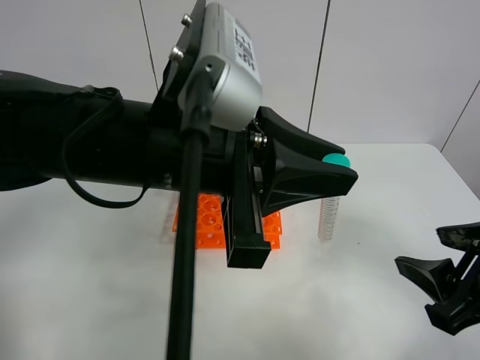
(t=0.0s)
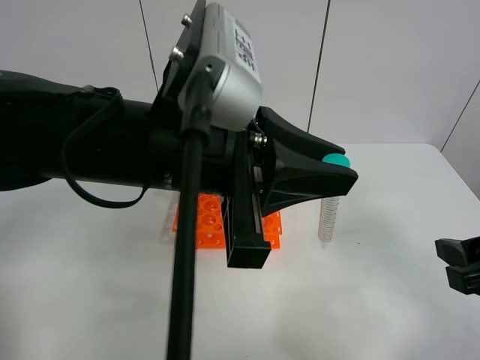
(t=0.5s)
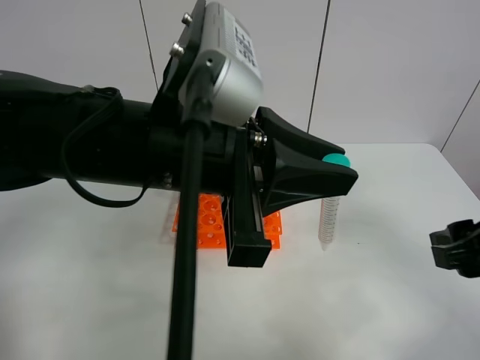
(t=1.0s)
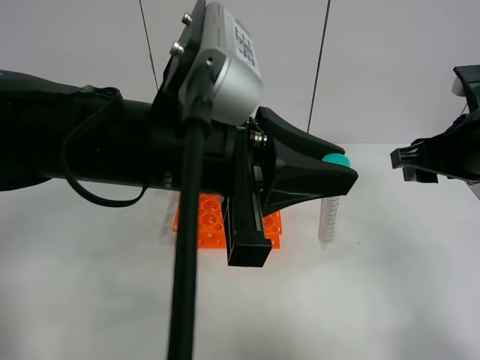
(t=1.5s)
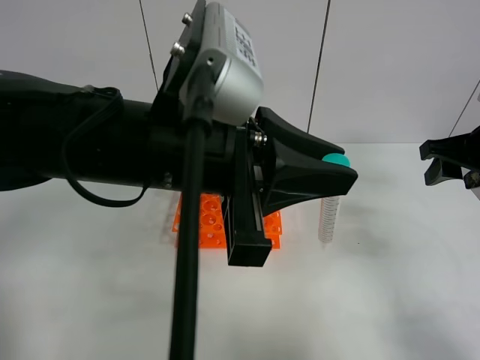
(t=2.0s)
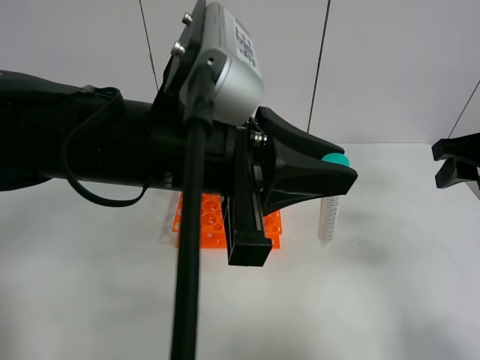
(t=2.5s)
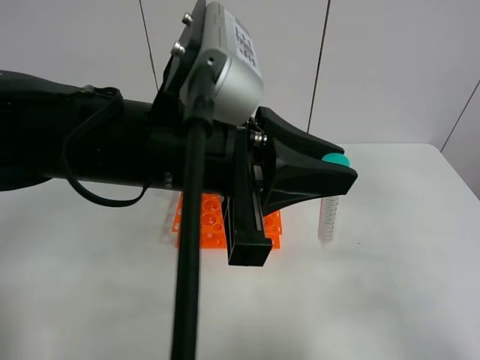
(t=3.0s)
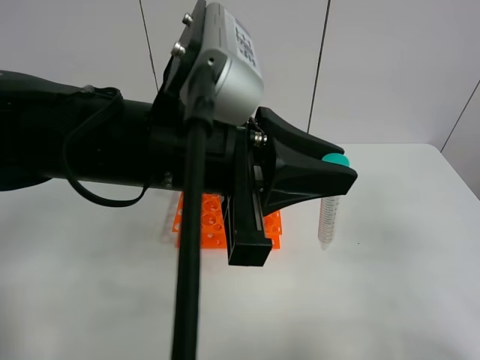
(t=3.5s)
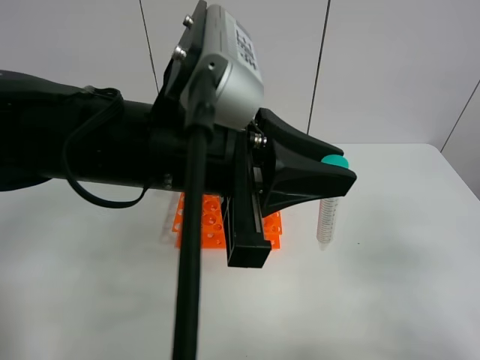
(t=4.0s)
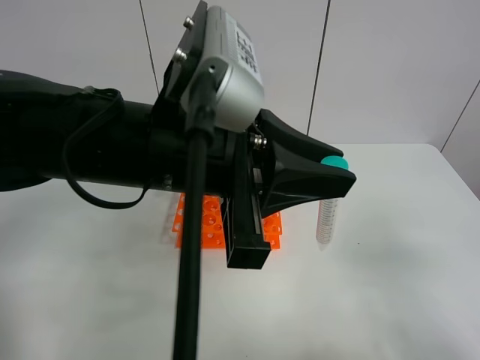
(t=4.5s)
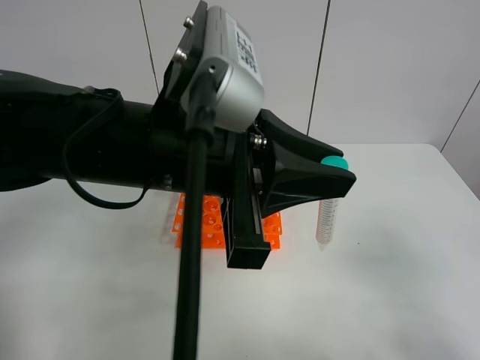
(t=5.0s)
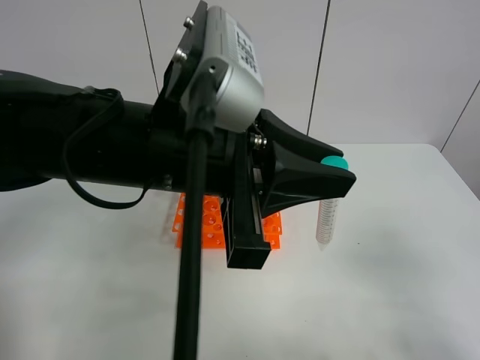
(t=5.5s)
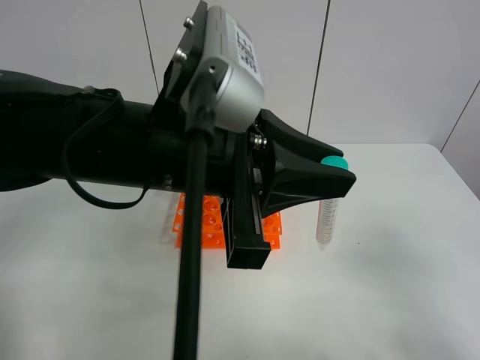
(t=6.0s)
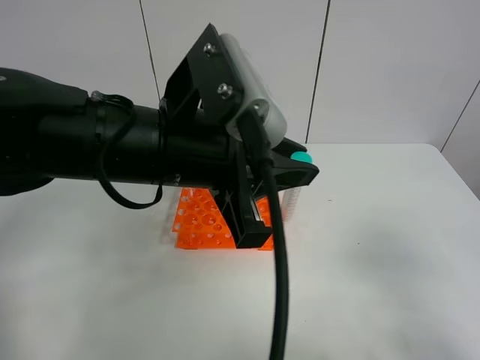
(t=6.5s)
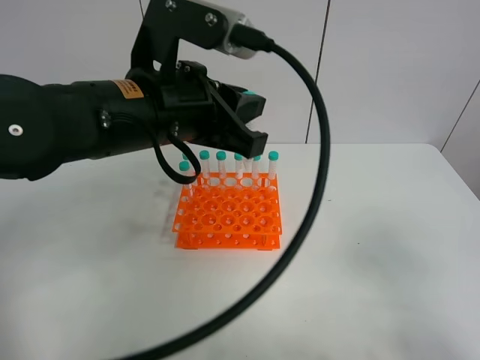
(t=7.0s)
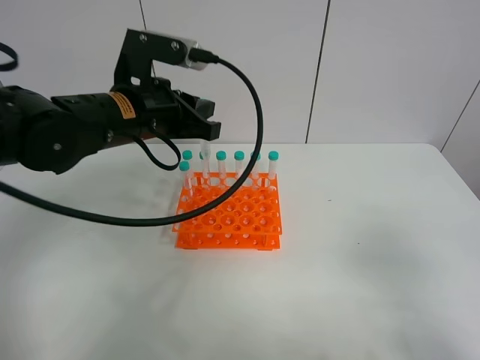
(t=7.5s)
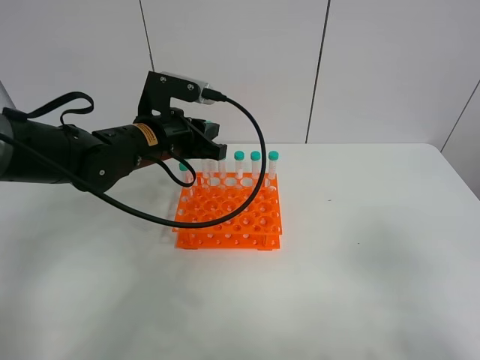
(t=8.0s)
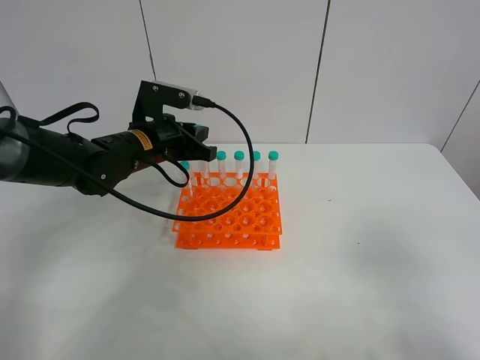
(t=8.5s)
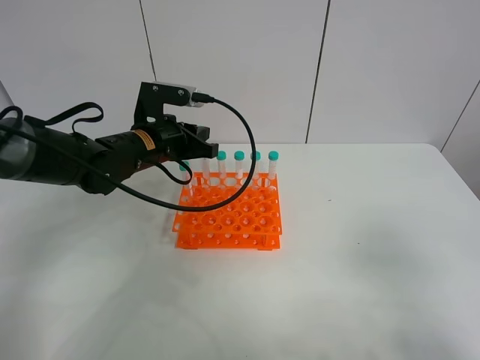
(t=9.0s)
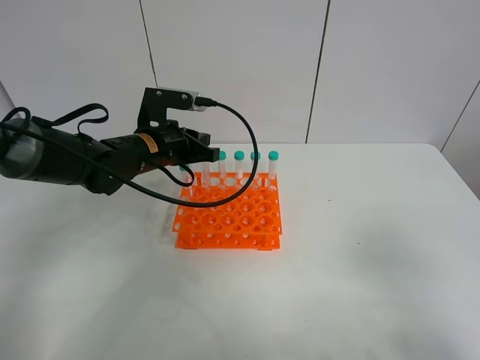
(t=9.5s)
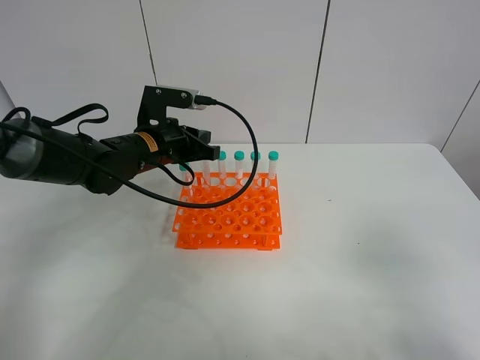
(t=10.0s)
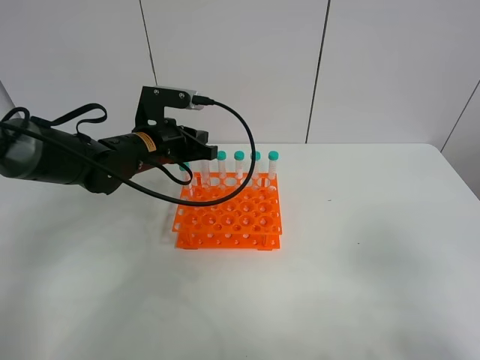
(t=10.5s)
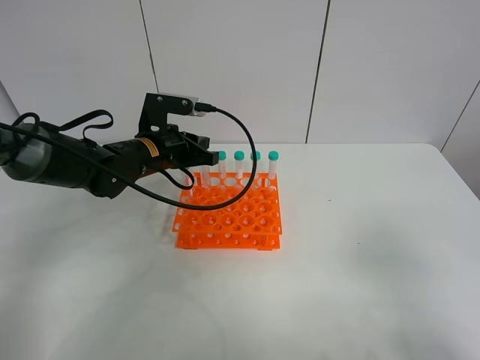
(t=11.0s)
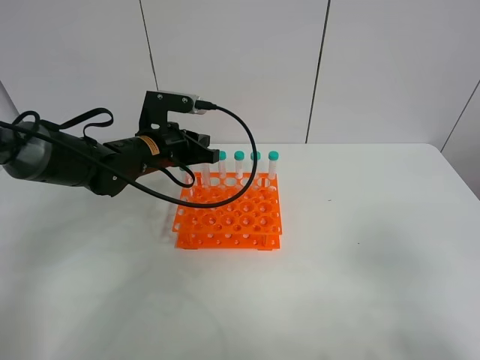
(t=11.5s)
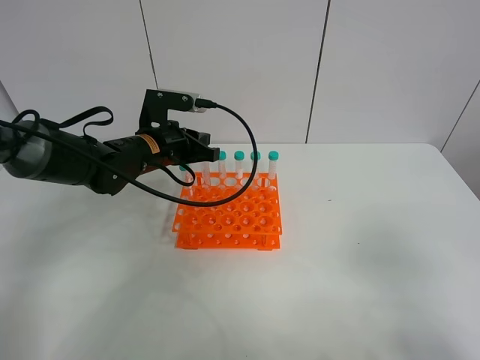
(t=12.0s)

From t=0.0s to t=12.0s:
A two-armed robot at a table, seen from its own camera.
Task of the whole recording: Put the test tube on the table back onto the test tube rack.
From t=0.0s to t=2.0s: The right gripper shifts approximately 15 cm forward.
From t=2.0s to t=4.0s: The right gripper shifts approximately 25 cm backward.
From t=6.0s to t=8.0s: The left gripper heads forward, downward and to the left, covering some 20 cm.
From t=8.0s to t=10.0s: There are only small adjustments of the grippers.
From t=10.0s to t=12.0s: Neither gripper changes place.

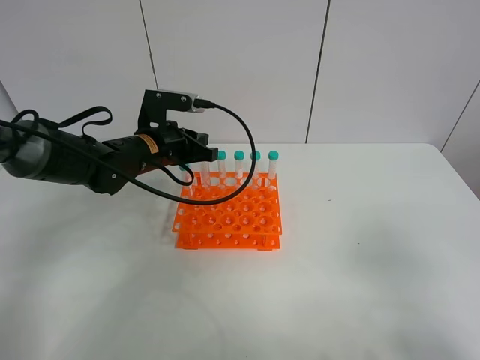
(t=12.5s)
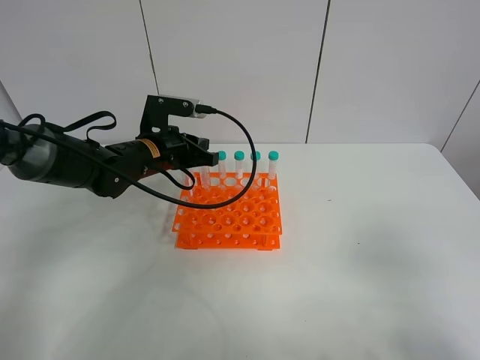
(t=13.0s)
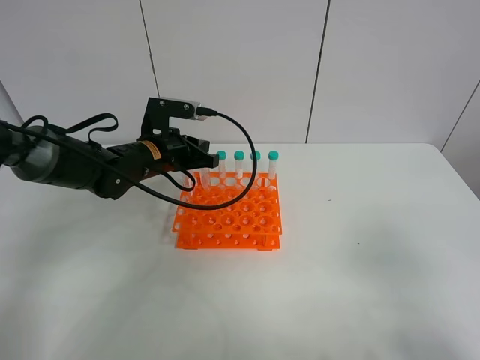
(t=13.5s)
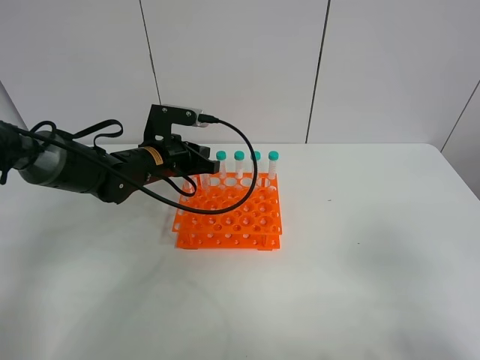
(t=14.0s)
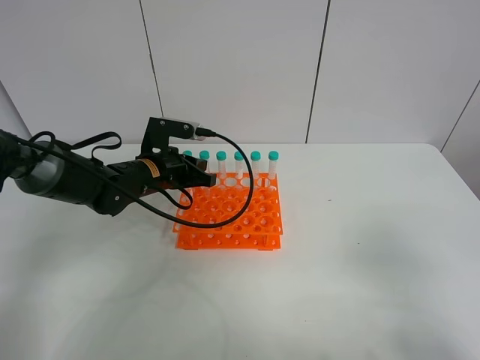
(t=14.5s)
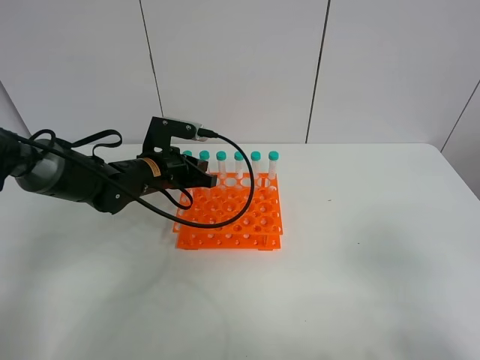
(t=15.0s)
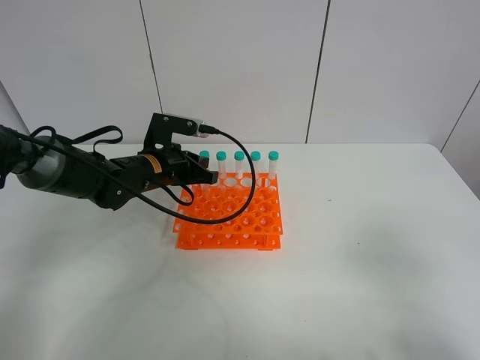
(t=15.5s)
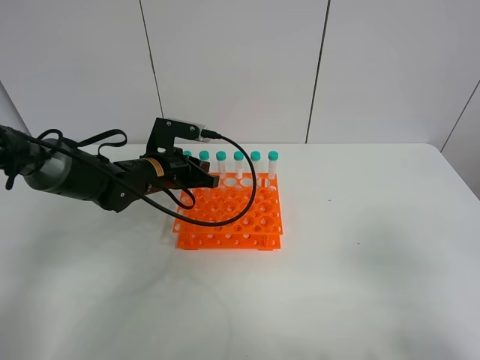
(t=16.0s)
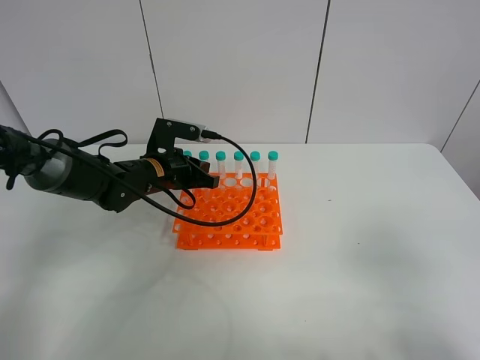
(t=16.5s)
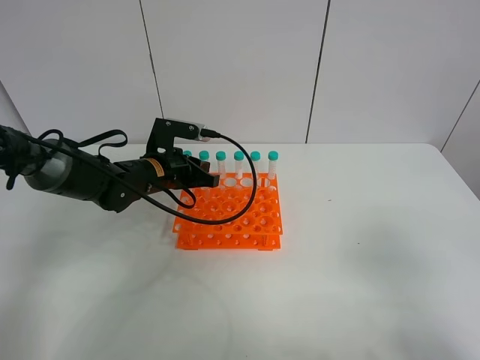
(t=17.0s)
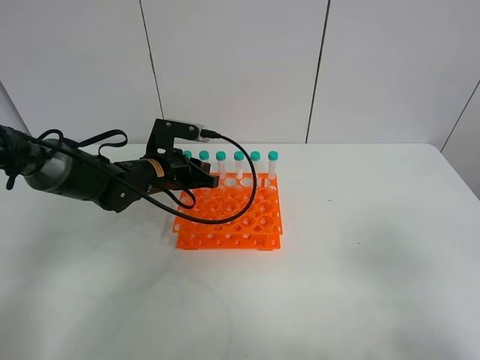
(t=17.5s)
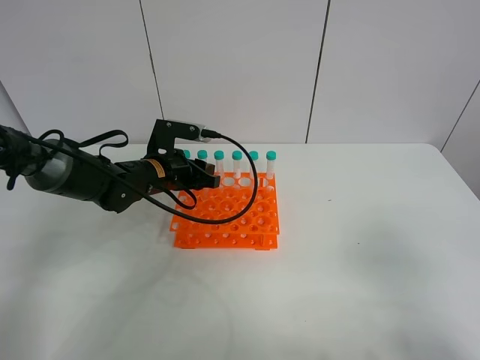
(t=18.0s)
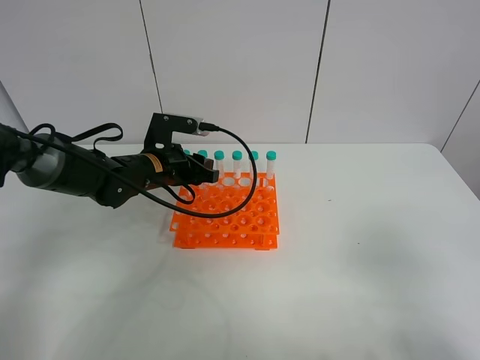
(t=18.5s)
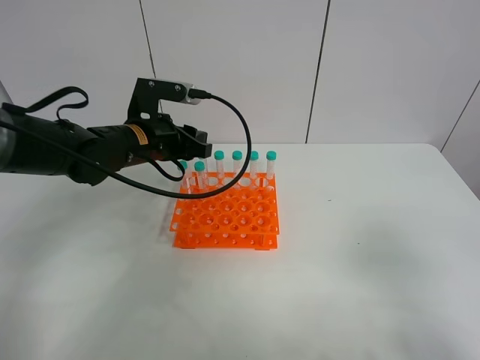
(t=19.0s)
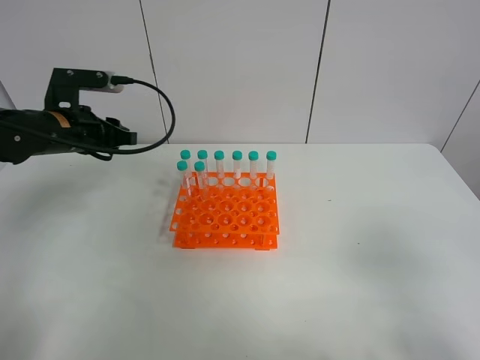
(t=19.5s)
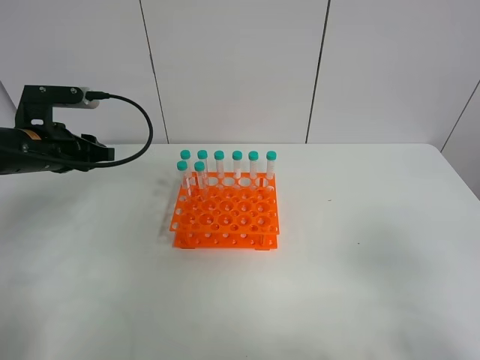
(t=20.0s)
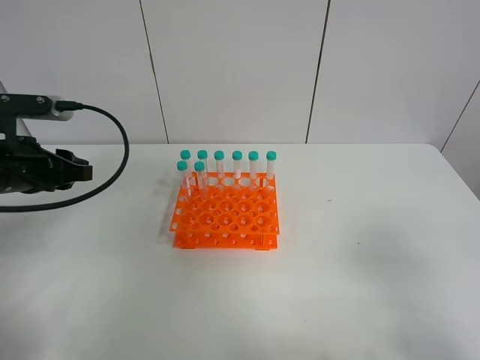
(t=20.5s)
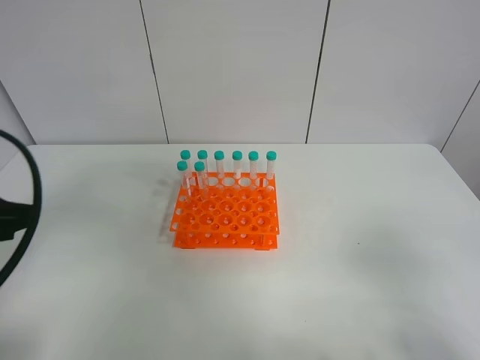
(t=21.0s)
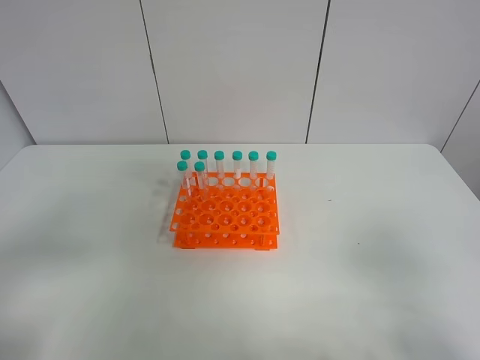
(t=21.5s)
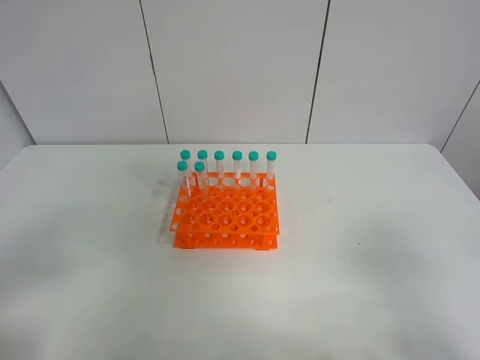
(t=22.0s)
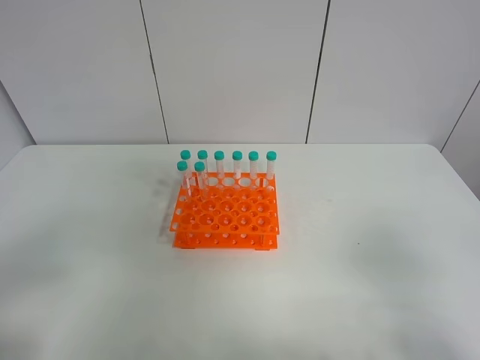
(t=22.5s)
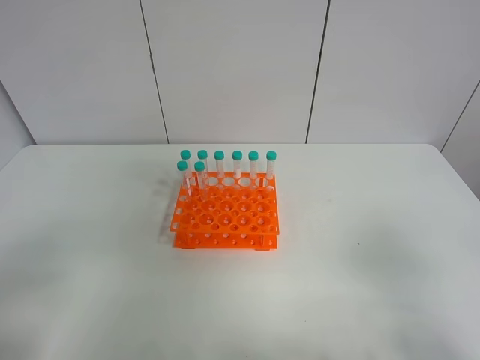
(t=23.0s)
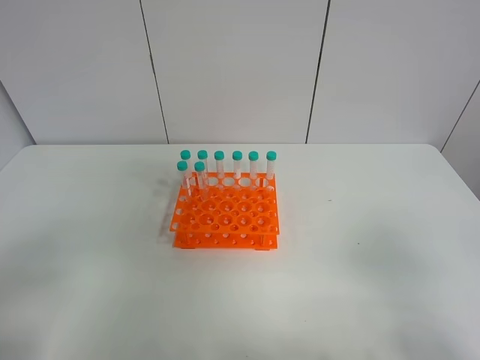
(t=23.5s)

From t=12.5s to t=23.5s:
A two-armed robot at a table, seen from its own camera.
Task of the whole recording: Put the test tube on the table back onto the test tube rack.
Step, from t=12.5s to t=17.5s: Place the test tube on the test tube rack with the left gripper.
From t=12.5s to t=14.5s: The grippers make only small movements.
From t=14.5s to t=18.0s: The two grippers keep their place.
From t=18.0s to t=20.0s: The left gripper is displaced to the left and upward by approximately 15 cm.
From t=20.0s to t=21.5s: The left gripper shifts roughly 30 cm backward.
